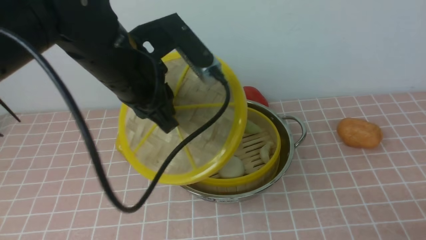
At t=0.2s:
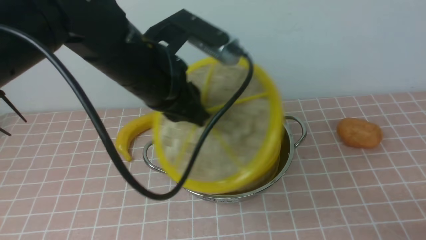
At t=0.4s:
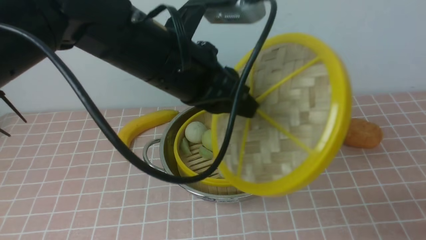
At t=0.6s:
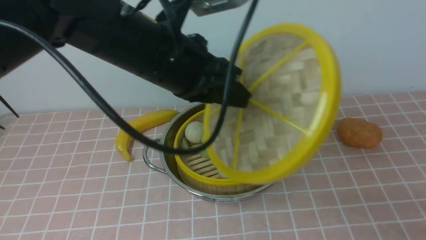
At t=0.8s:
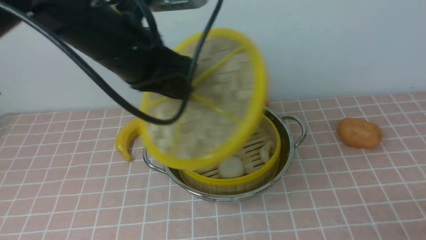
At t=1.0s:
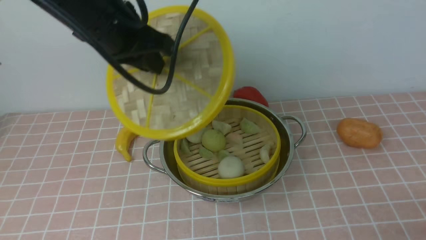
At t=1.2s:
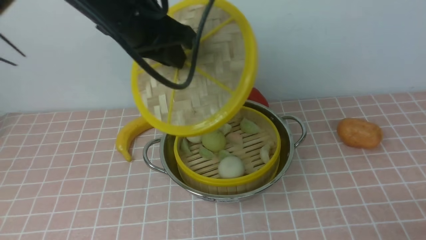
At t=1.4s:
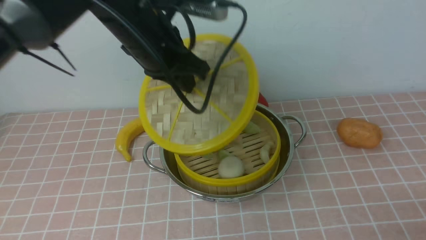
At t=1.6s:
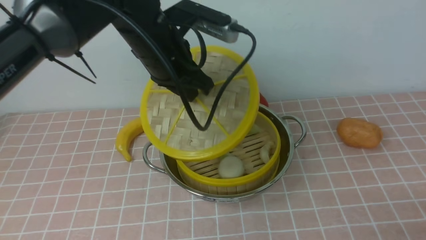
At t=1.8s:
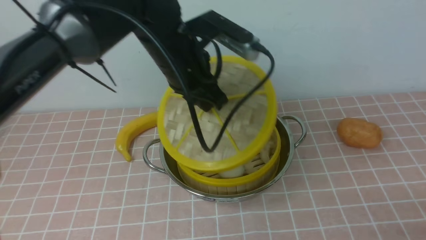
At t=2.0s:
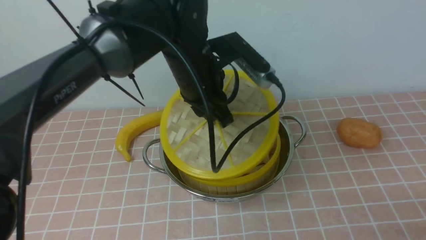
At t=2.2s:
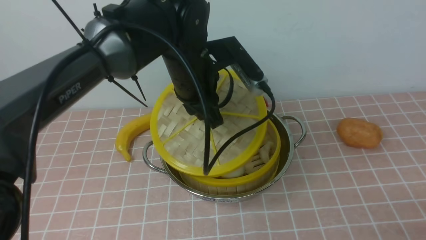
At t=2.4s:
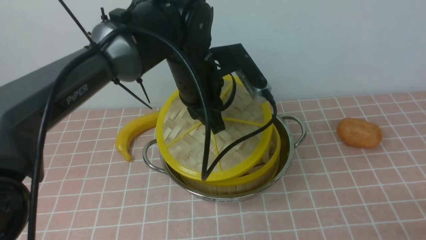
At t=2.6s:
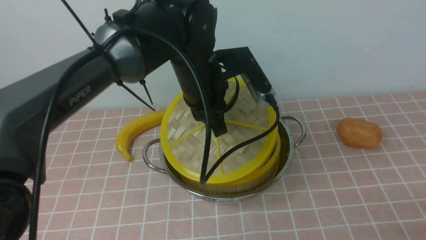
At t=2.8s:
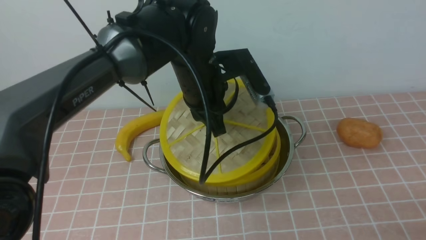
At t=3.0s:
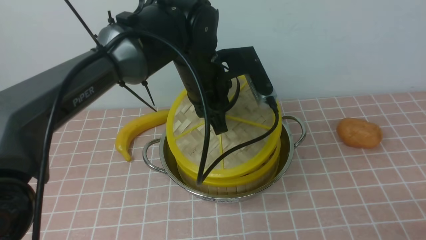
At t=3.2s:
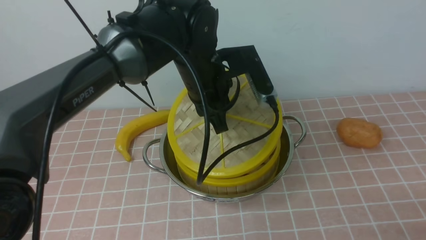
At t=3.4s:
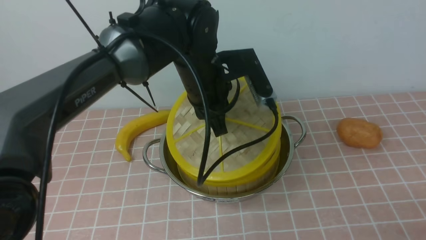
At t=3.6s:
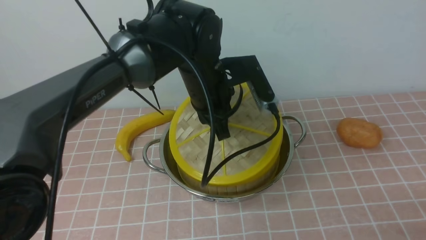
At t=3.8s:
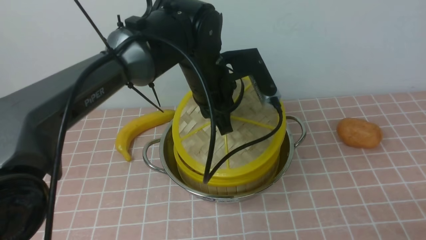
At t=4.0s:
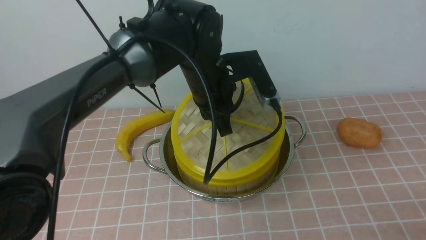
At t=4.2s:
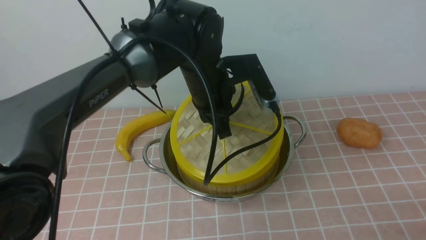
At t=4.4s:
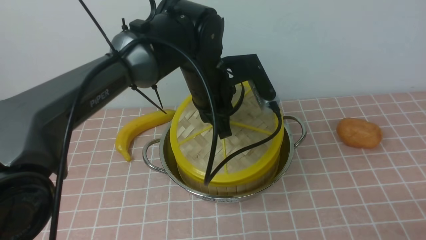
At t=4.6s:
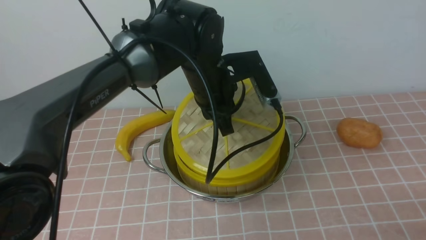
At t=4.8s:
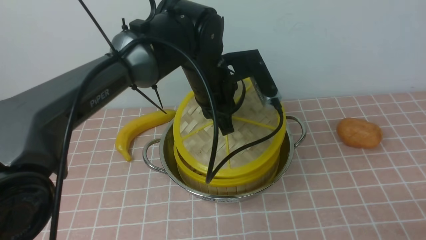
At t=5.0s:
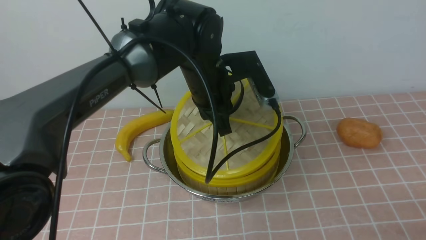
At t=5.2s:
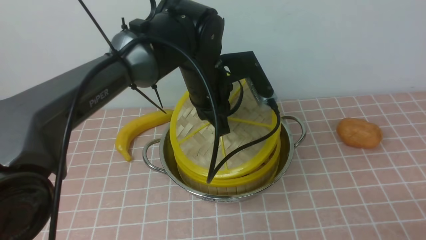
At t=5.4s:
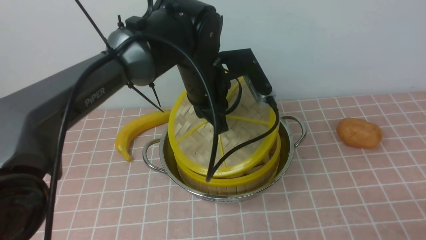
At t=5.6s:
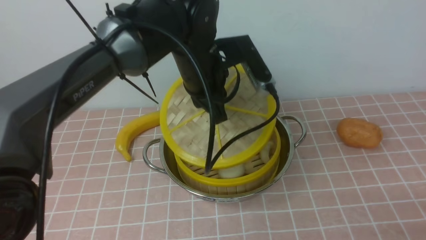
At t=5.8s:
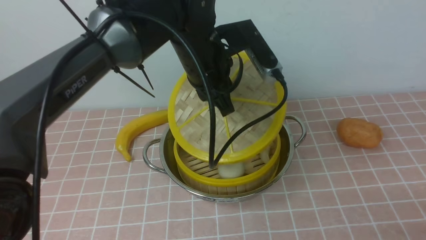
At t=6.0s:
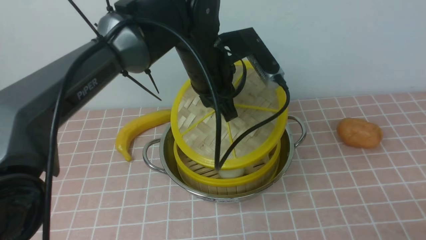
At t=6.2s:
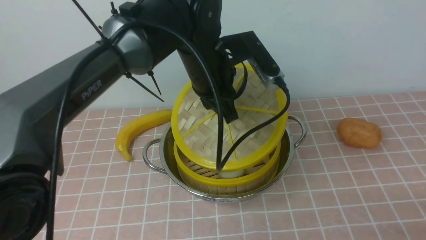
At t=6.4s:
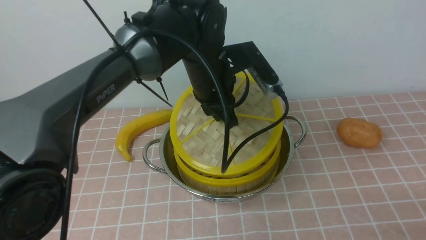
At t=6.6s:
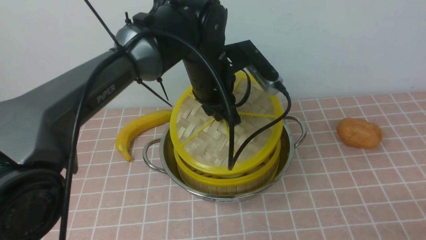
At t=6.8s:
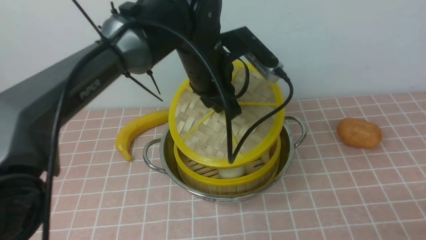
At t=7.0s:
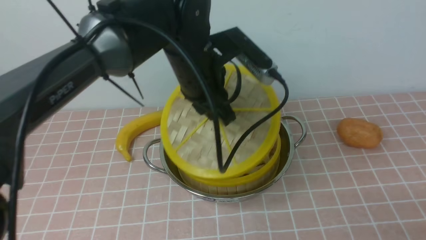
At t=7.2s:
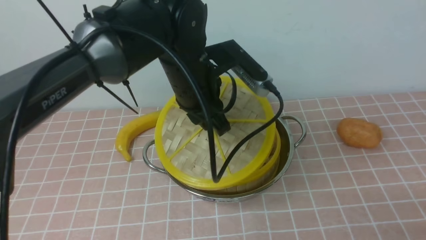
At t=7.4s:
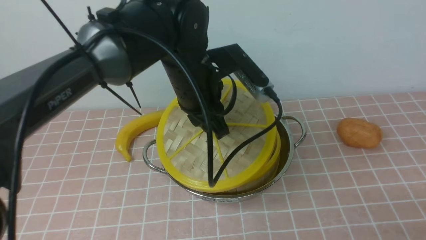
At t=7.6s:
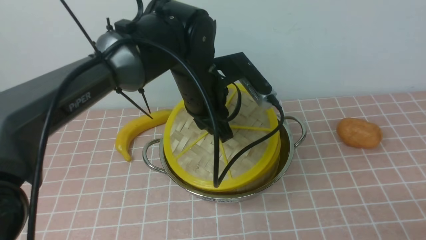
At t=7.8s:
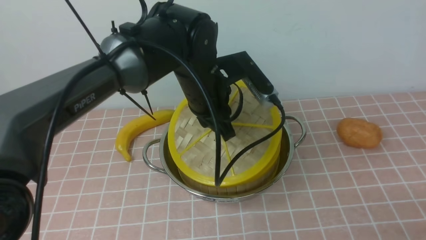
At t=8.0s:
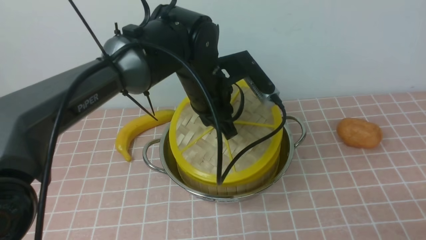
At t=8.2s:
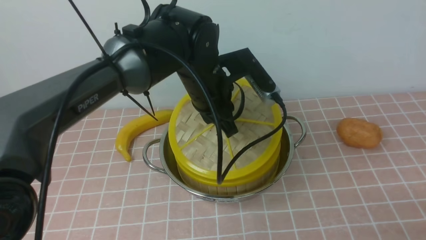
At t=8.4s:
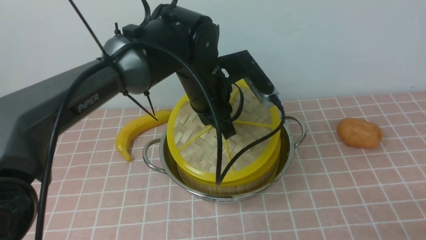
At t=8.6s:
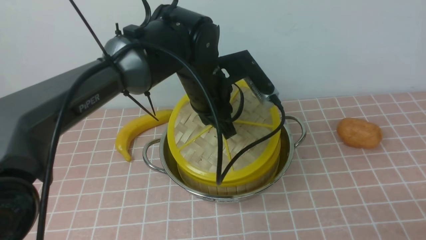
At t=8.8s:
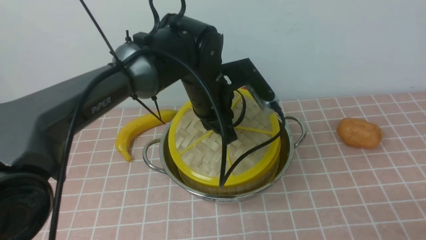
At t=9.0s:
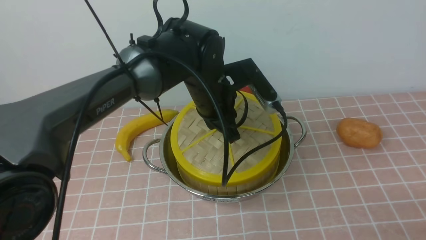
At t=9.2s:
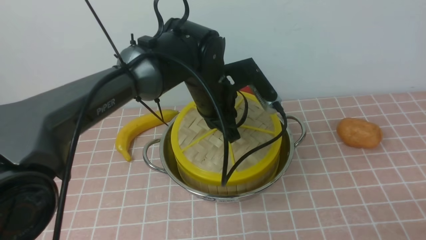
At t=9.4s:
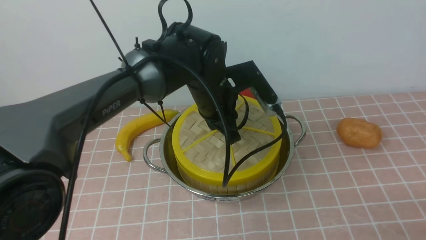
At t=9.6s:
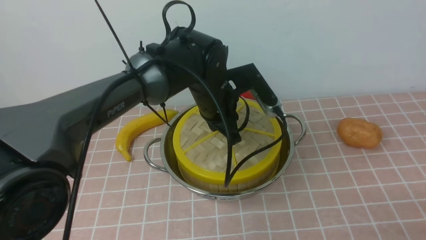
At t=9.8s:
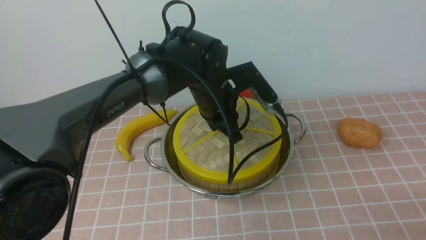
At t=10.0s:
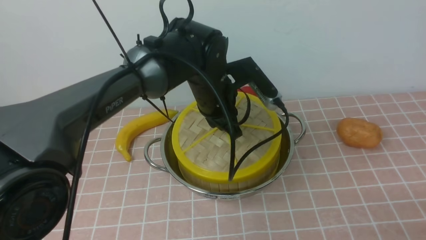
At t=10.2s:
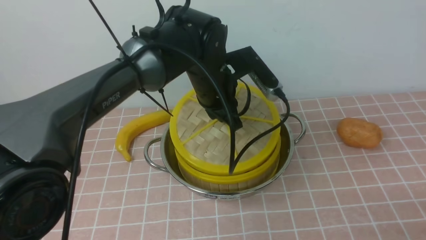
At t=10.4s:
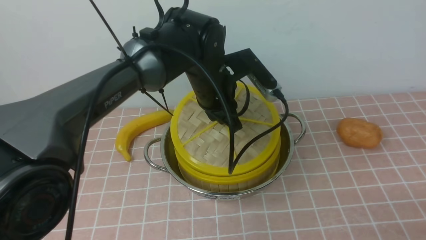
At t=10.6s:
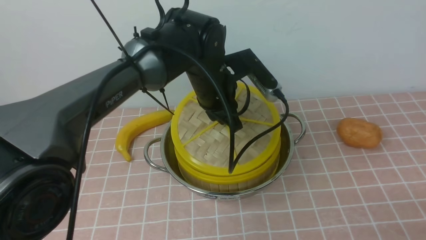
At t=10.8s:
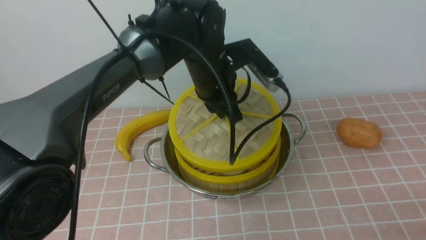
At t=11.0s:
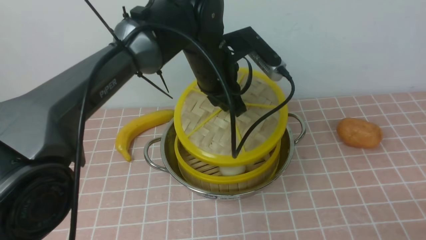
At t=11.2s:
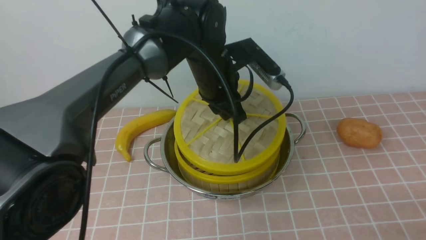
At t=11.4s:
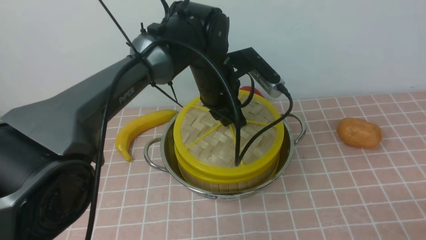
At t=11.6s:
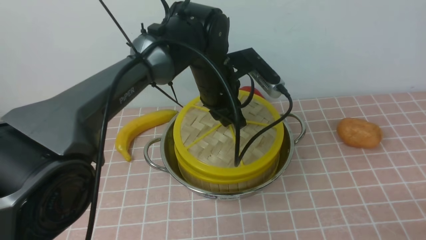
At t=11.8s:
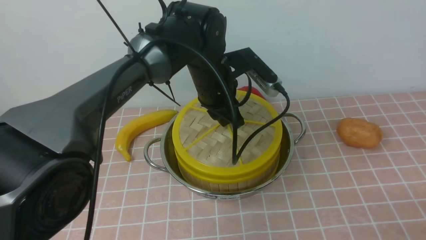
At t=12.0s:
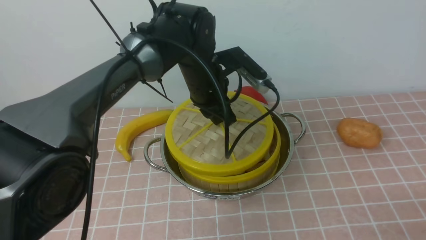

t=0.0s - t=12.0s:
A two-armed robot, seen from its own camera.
Task of the whole recording: place the steamer in the pot on the pink tablecloth, and put the lid on the steamer.
t=0.0s - t=1.6s: The left gripper heads forward, covering approximately 5 cm.
t=1.6s - t=3.0s: The left gripper moves roughly 5 cm.
t=3.0s - t=7.6s: The grippers stay close to where they were, moving slightly.
t=9.0s - t=12.0s: The grippers move only a little.

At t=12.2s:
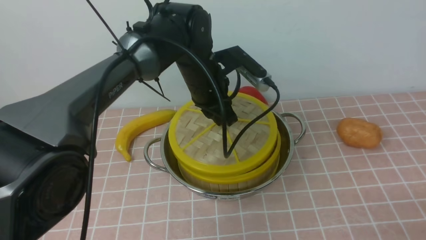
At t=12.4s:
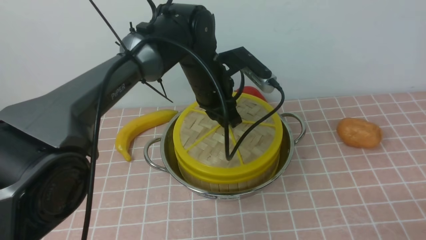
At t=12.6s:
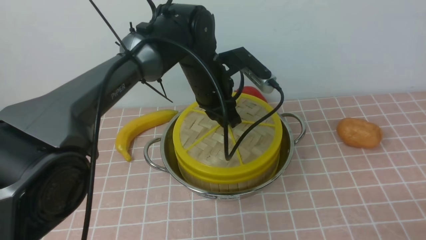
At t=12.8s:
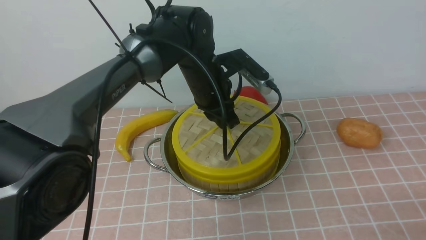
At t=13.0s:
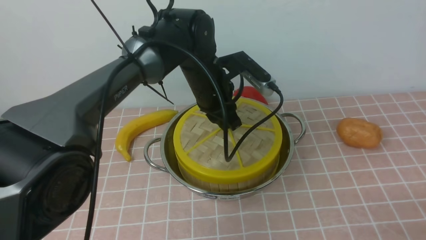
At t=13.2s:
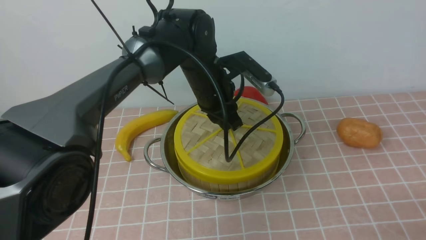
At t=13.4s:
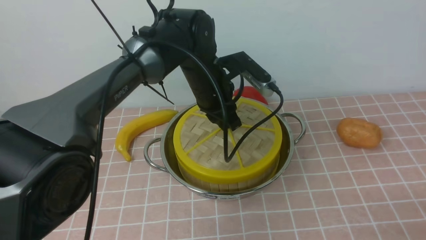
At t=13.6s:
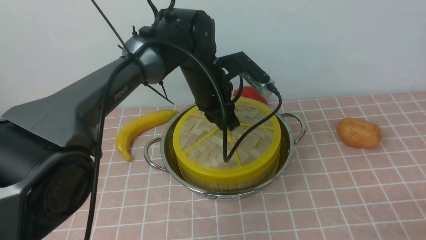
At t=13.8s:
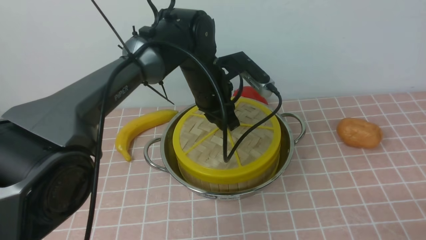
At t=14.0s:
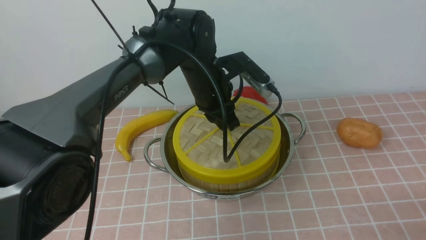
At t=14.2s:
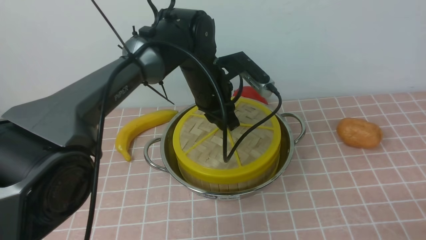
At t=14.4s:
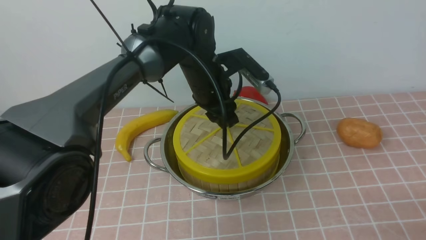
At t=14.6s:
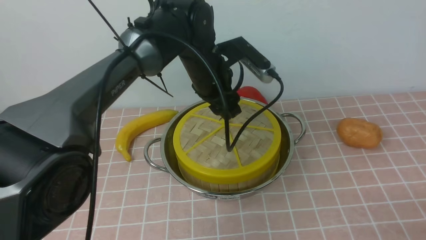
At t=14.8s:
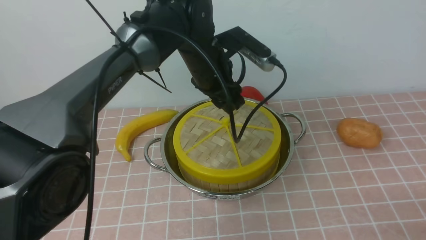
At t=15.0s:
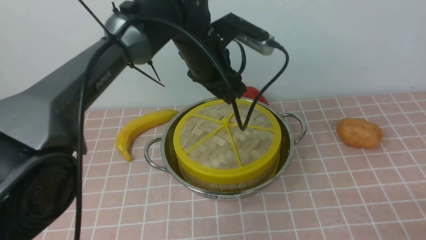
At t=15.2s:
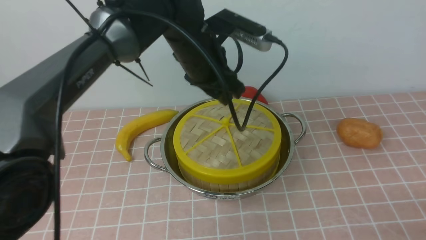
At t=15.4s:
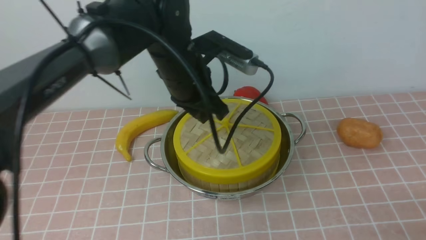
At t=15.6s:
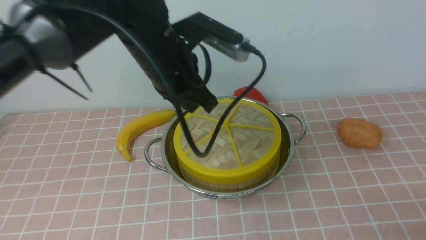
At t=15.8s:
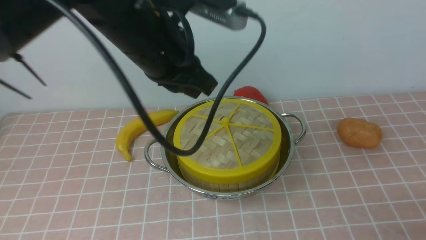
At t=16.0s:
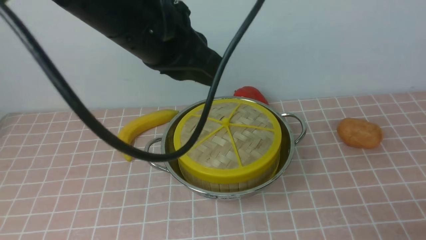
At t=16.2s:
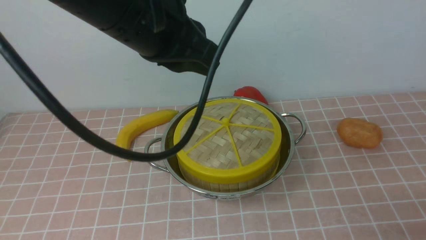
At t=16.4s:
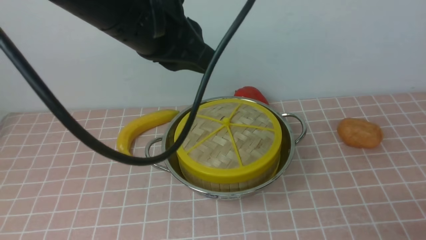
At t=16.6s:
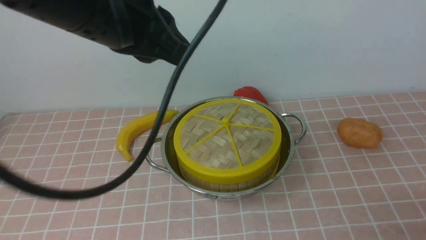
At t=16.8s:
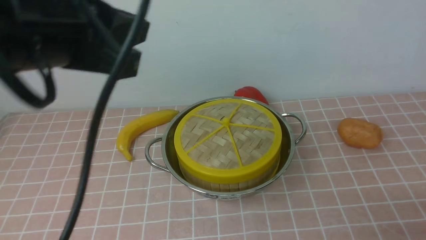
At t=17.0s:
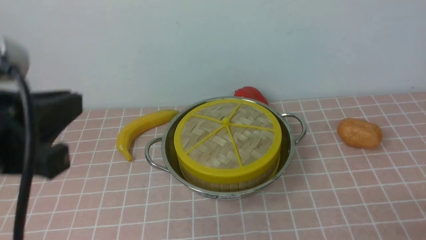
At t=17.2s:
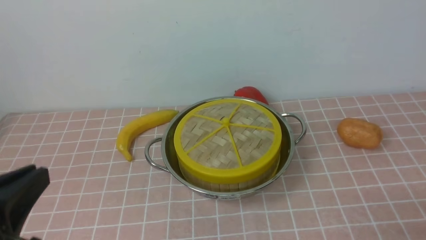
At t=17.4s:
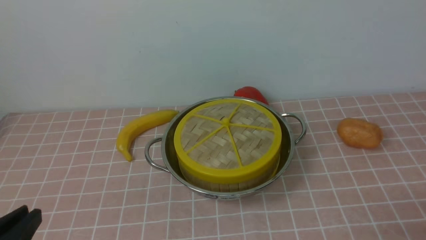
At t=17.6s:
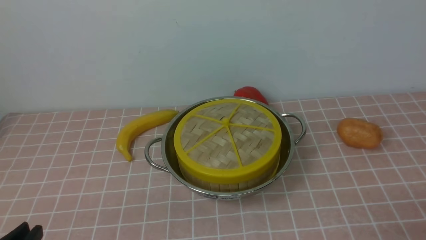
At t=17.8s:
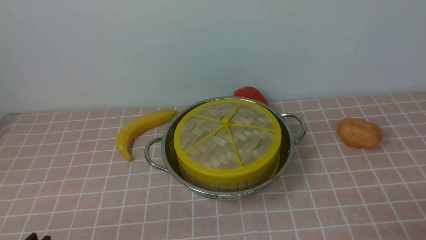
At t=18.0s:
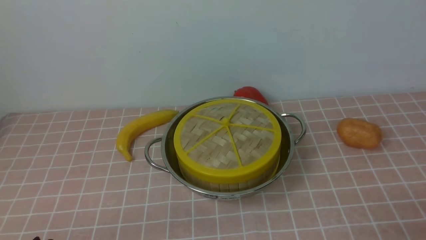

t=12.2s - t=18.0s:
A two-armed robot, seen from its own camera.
Task of the whole recording: place the steamer in the pot on the pink tablecloth, and put the lid on the steamer.
Step, t=12.2s - t=14.8s: use the left arm to place the steamer lid on the steamer.
t=12.2s - t=13.6s: Both grippers stay about where they are.
t=13.6s - t=15.0s: The left gripper moves upward, about 5 cm, and opens.
t=15.0s - t=16.6s: The left gripper shifts some 25 cm backward, upward and to the left, and closes.
t=16.6s - t=18.0s: The left gripper travels downward, backward and to the left by some 35 cm.
